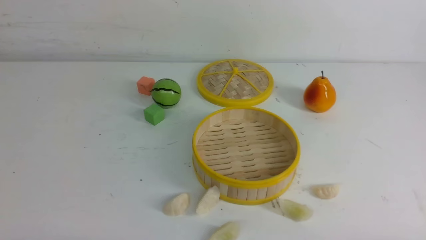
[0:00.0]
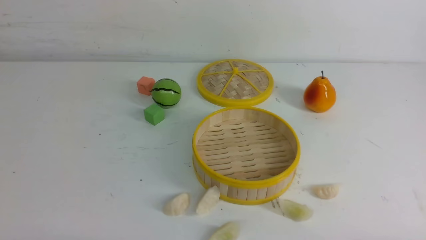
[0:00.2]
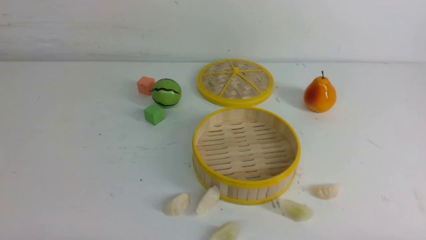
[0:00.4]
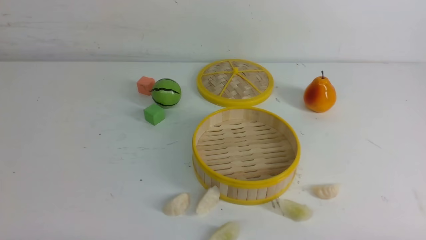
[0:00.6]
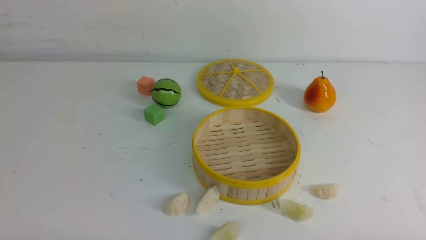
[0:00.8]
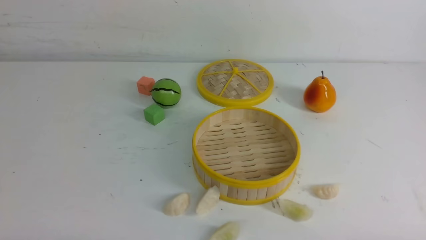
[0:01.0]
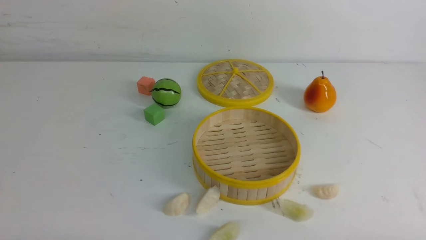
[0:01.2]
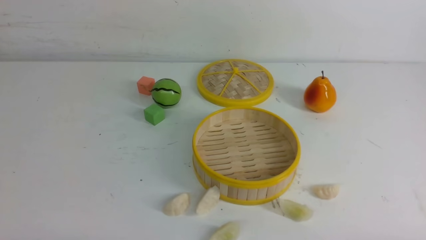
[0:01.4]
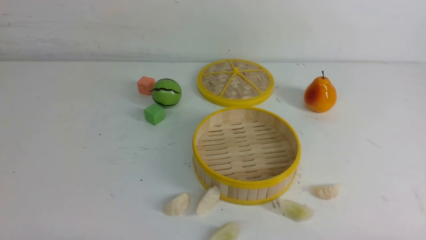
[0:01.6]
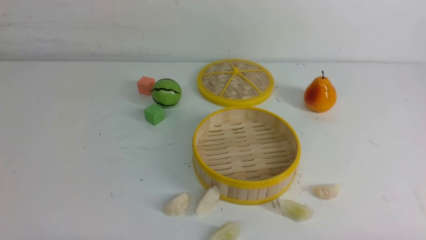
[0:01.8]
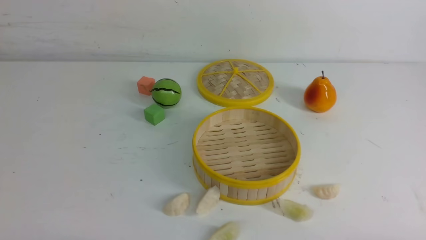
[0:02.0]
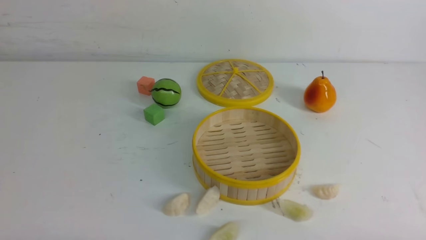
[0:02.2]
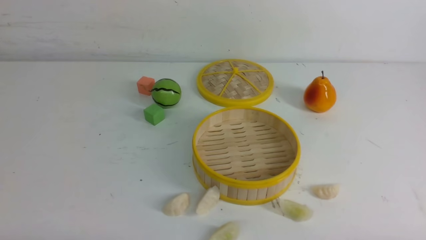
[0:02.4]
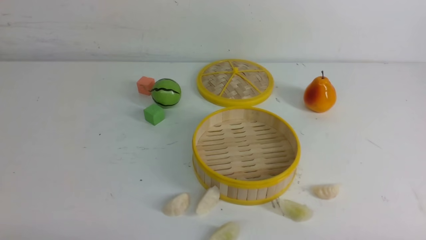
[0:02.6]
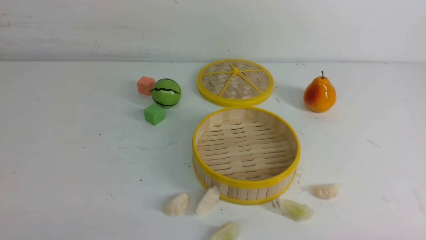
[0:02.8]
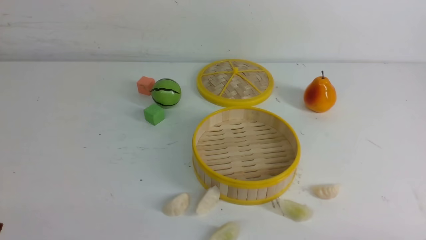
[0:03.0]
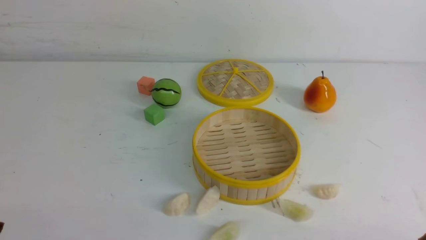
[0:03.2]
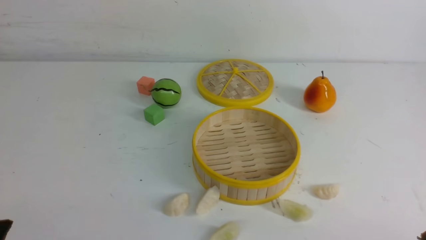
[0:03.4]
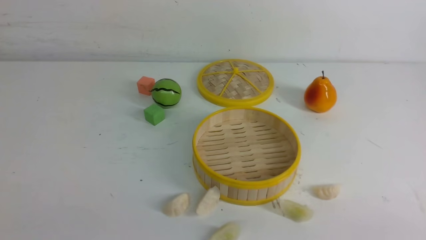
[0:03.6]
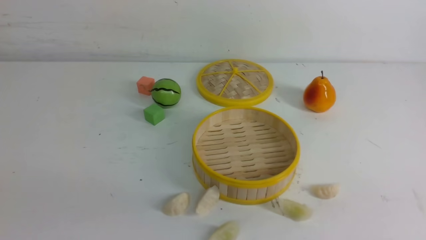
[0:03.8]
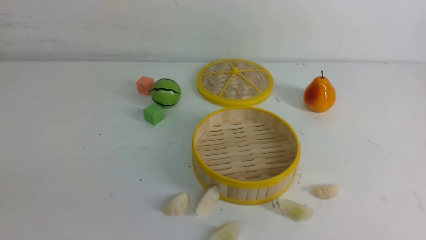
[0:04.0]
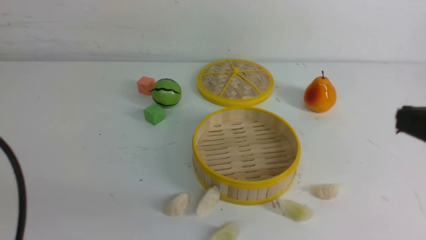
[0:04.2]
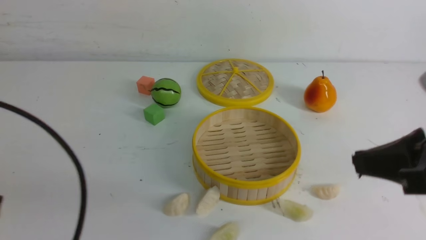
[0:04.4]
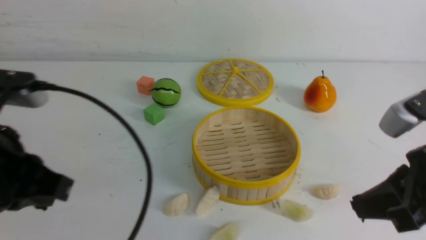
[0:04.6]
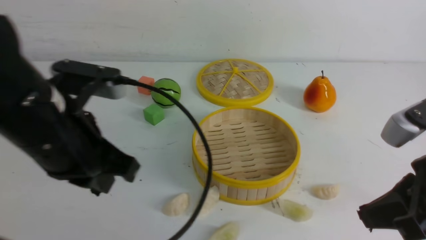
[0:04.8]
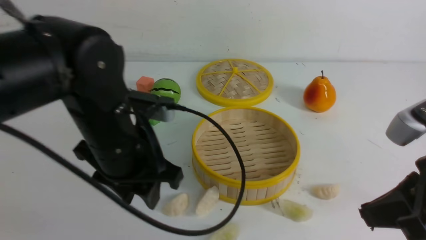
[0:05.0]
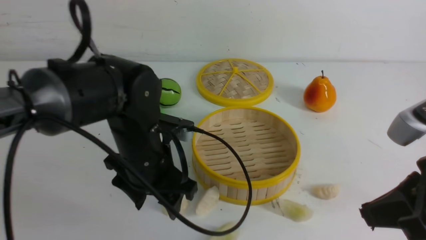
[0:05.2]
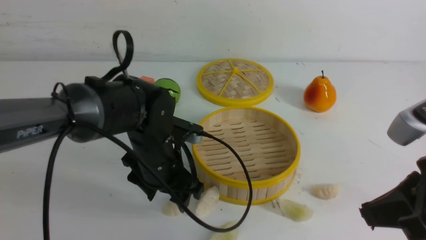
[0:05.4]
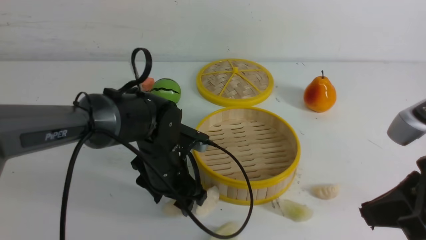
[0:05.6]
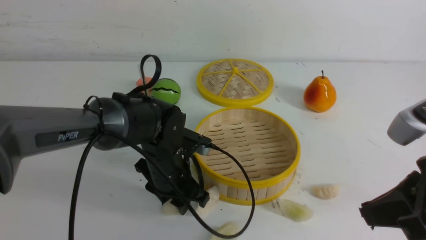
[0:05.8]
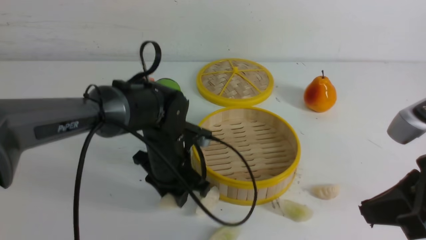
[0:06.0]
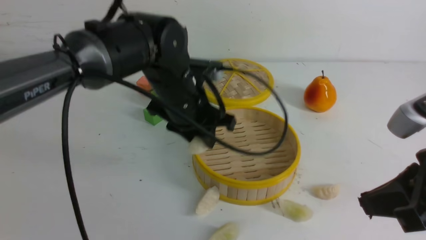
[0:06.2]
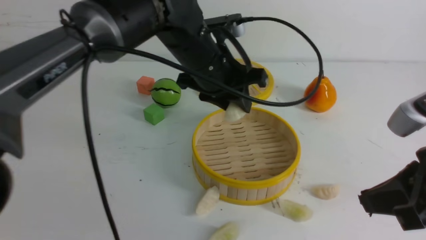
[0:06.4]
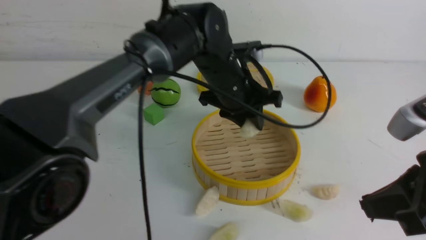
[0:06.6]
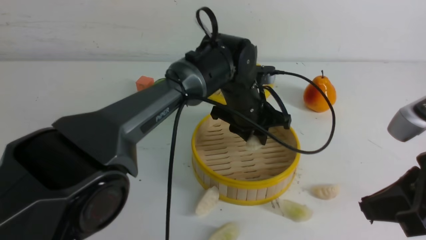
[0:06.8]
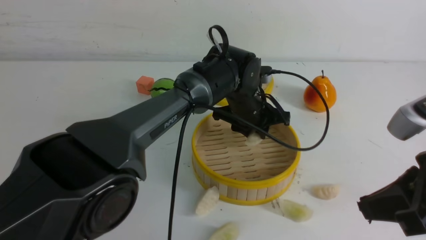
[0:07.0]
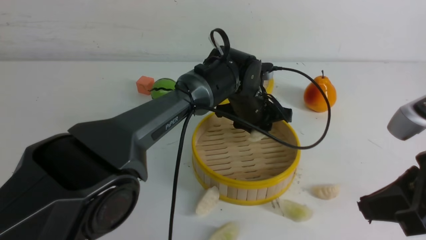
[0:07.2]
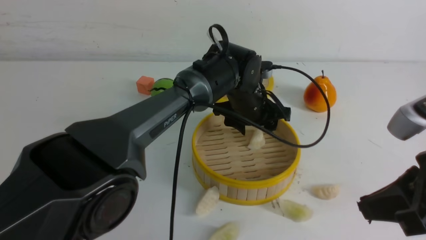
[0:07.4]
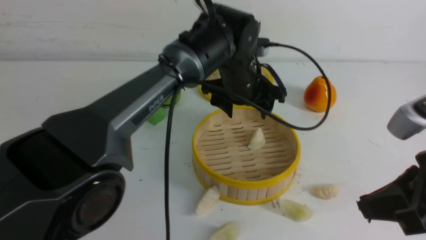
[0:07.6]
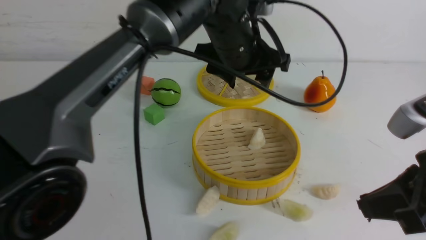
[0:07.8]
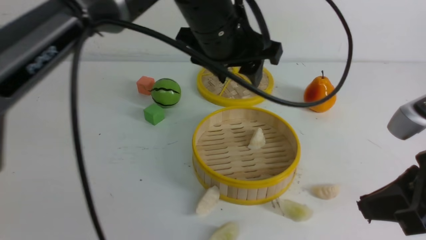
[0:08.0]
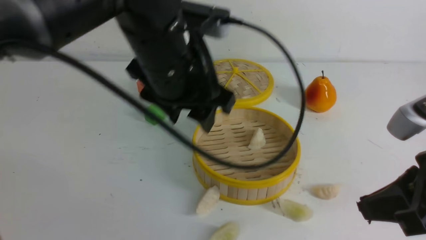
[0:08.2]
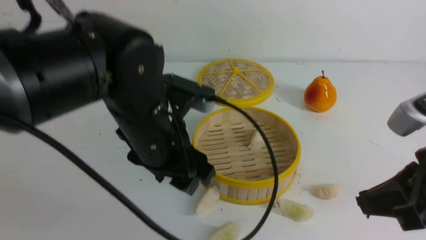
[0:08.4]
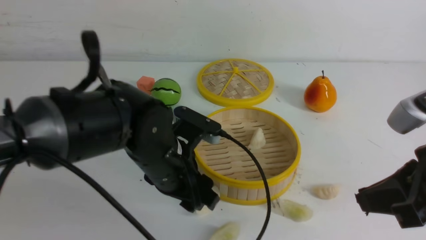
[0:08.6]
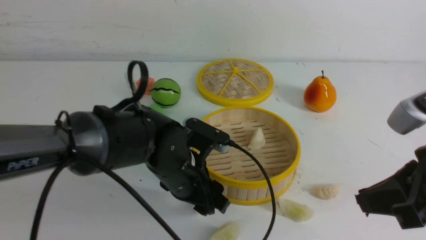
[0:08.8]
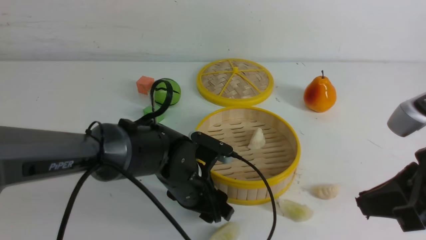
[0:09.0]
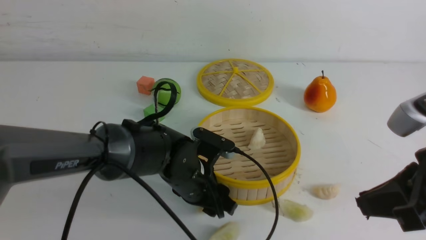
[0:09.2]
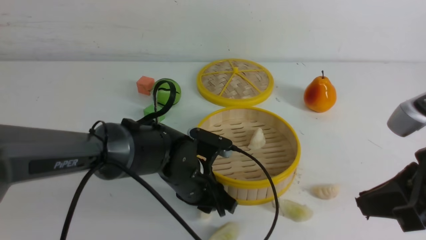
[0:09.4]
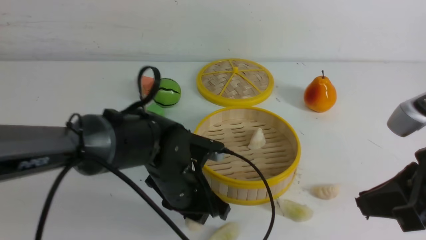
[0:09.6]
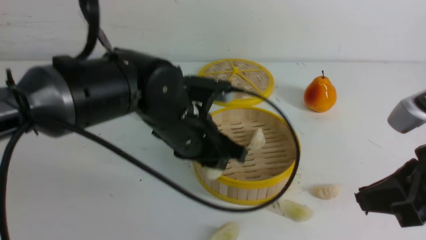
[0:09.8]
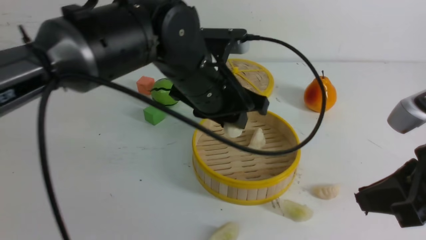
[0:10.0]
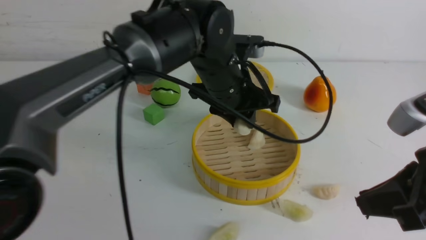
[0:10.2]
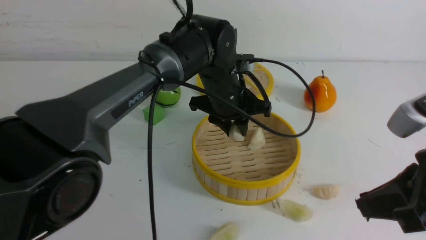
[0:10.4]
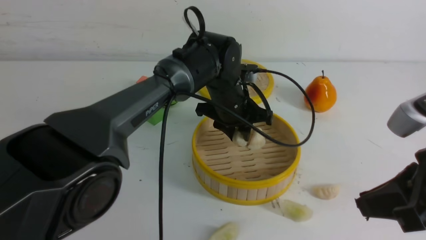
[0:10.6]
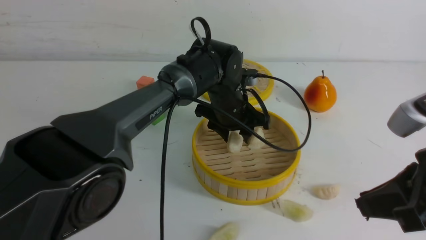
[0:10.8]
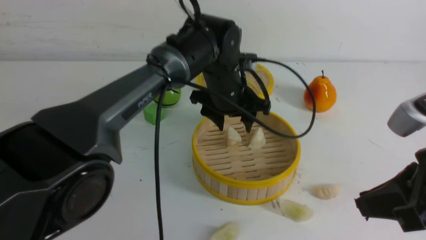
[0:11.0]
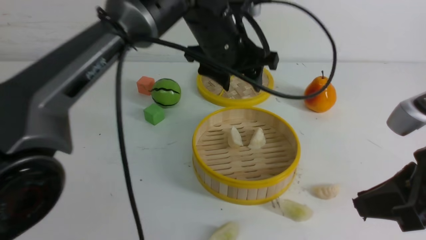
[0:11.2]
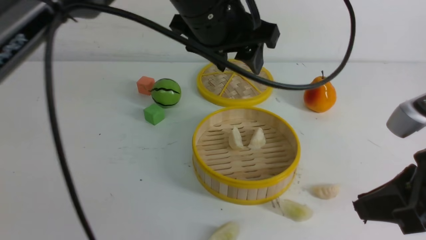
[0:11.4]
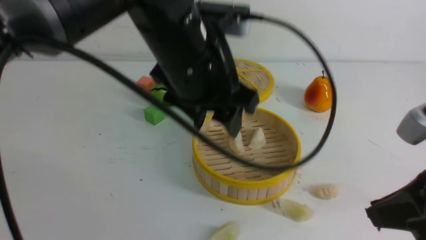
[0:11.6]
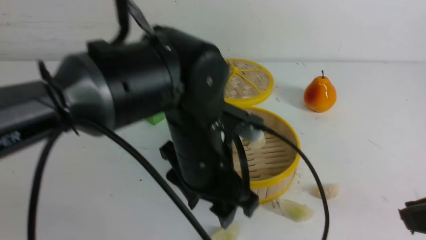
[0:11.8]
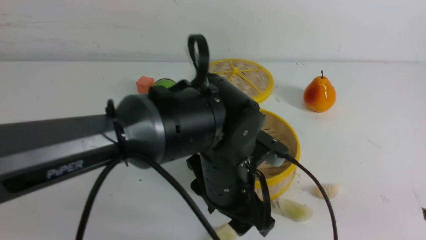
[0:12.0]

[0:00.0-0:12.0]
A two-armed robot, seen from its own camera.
Task of the whole recording: put the dumplings into the steamer on the white table.
Step, 0:00.0 to 0:05.8: use the left arm to grab a dumpling.
Step, 0:06.0 to 0:07.2: use the left arm to put the dumpling into the steamer.
Step, 0:07.4 to 0:09.4: use the left arm to grab a dumpling.
Step, 0:09.6 to 0:10.8: use the left arm to put the dumpling into the steamer.
0:00.0 to 0:01.6: Both grippers stay put.
0:03.0 to 0:04.4: The two grippers go approximately 20 cm upward and forward. The left gripper closes up; the right gripper closes.
0:04.4 to 0:06.0: The left gripper shifts approximately 30 cm forward, to the right and downward, and opens up.
0:06.0 to 0:07.6: The left gripper shifts some 15 cm to the right, upward and forward, and opens.
0:07.6 to 0:09.0: The left gripper goes roughly 20 cm downward, backward and to the left.
0:09.0 to 0:10.4: The left gripper goes roughly 15 cm forward, upward and to the right, and closes up.
0:10.4 to 0:12.0: The left gripper travels backward by roughly 15 cm, and opens up, while the right gripper is displaced backward by approximately 5 cm.

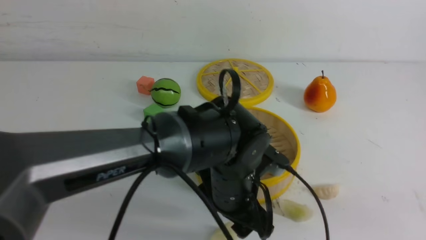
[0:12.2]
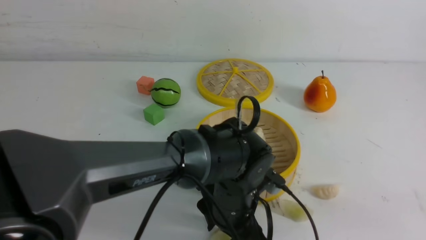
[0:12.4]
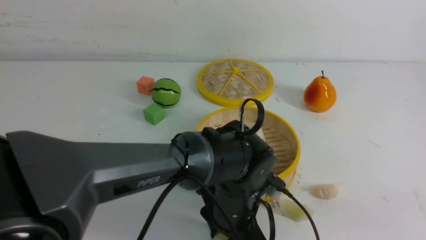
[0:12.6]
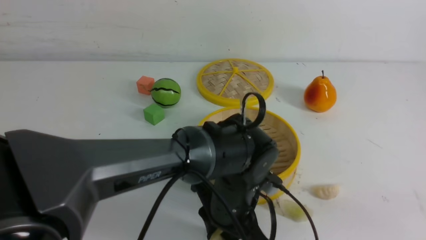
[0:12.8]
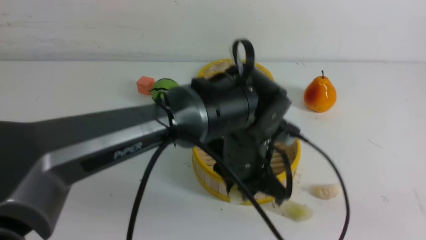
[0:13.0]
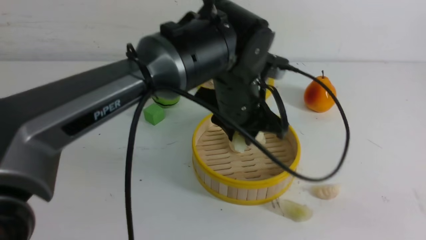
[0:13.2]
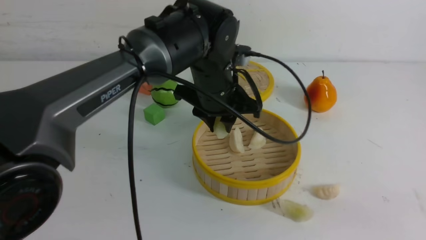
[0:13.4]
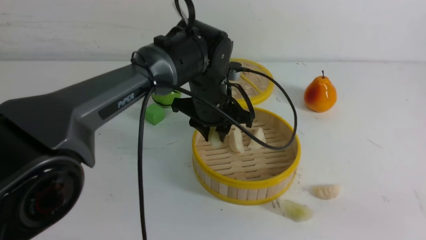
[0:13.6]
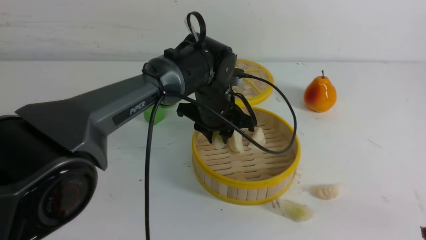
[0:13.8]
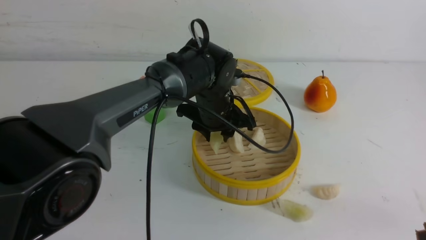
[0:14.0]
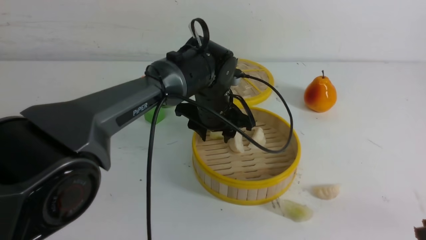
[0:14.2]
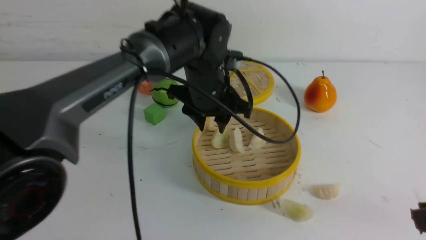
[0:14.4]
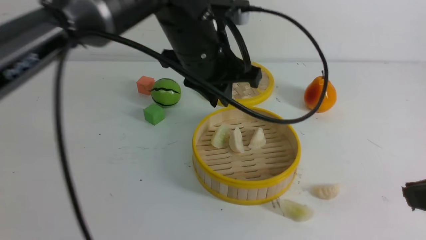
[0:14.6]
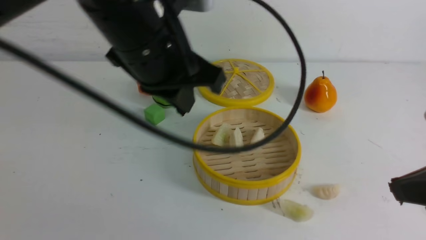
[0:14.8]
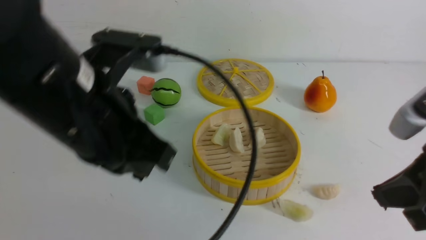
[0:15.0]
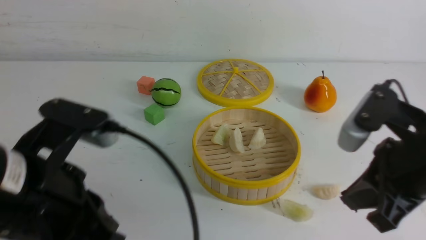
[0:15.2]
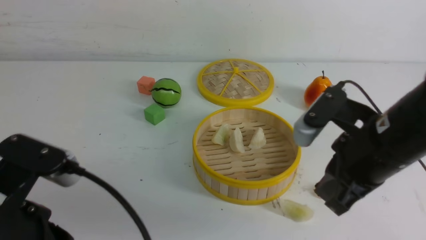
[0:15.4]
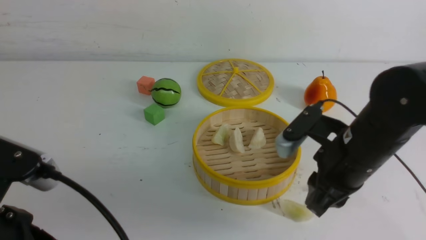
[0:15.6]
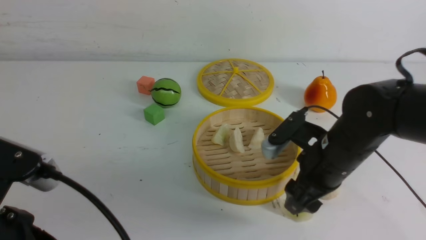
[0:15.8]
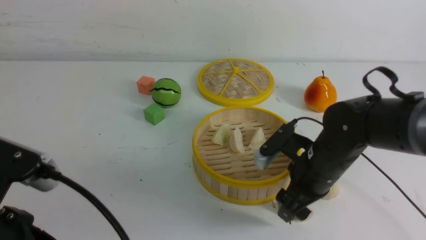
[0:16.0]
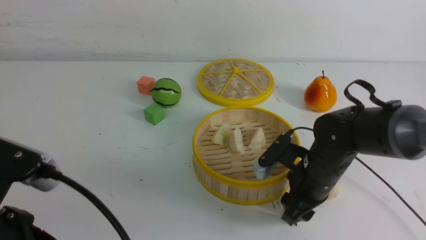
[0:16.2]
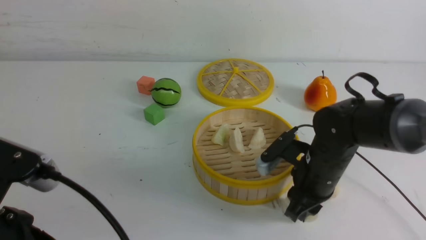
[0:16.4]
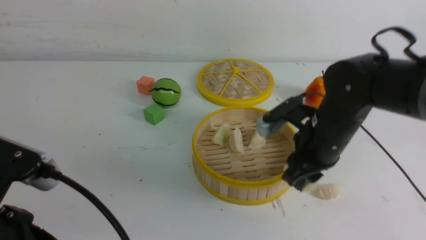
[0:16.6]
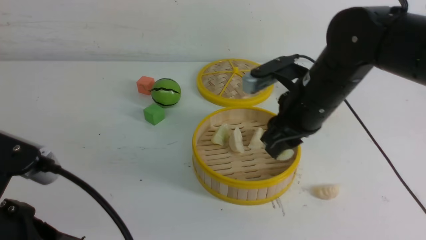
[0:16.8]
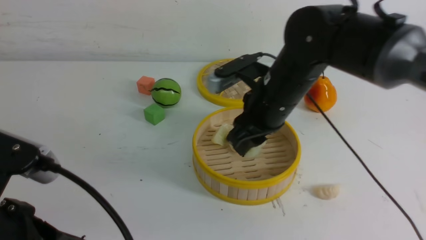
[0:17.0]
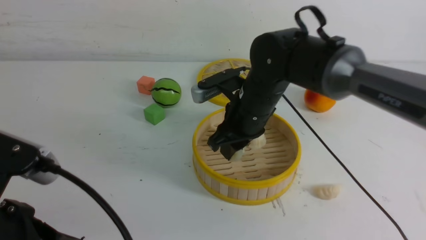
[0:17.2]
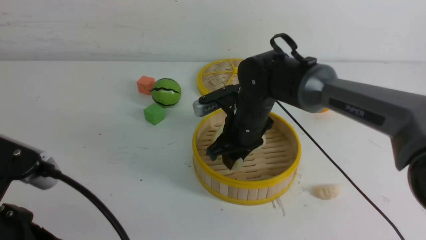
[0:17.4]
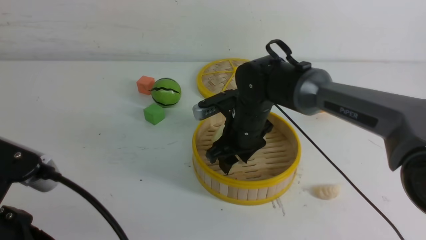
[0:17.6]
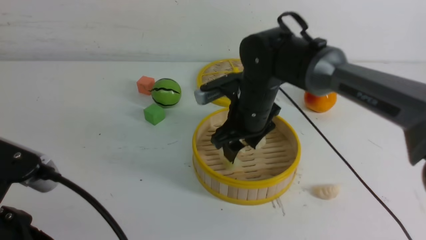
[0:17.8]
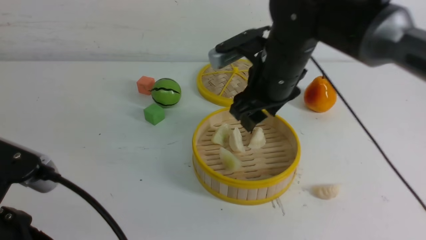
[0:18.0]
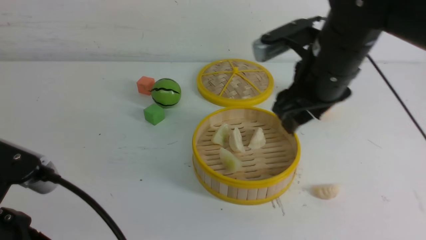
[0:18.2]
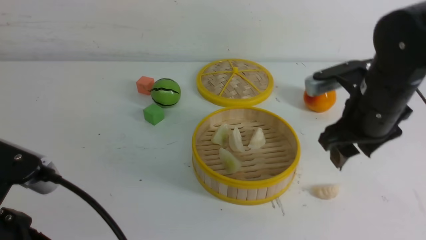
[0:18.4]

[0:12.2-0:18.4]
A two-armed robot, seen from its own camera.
Task of the whole recording: put the dumplings into the steamer on the white table.
Step, 0:13.0 to 0:14.2: use the left arm to put the dumpling into the steamer.
Step, 0:14.4 to 0:16.2: use the right arm to grab a dumpling.
Step, 0:16.4 to 0:17.4: use the right arm to put the dumpling into the steamer.
0:12.2 to 0:13.8: The left gripper shifts some 15 cm forward, and closes its fingers.
0:13.8 to 0:15.4: The left gripper heads backward and to the left, covering about 35 cm, and closes up. The right gripper heads forward and to the left, covering roughly 15 cm.
0:15.4 to 0:16.8: The right gripper goes some 10 cm forward and to the left, goes downward and returns, approximately 10 cm each way, and opens, then closes once more.
0:16.8 to 0:18.4: The right gripper goes roughly 5 cm to the right, and opens its fingers.
